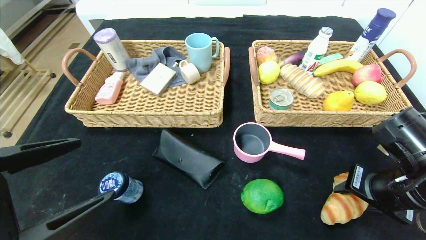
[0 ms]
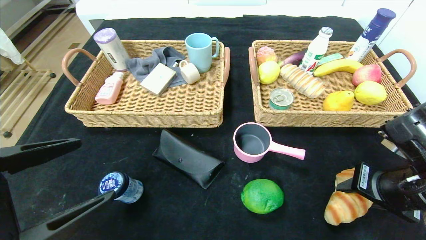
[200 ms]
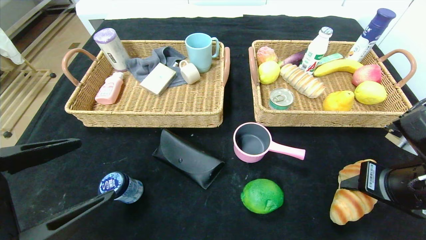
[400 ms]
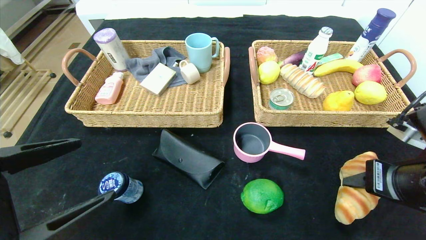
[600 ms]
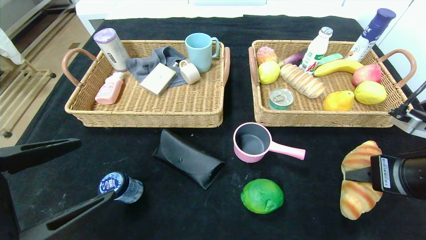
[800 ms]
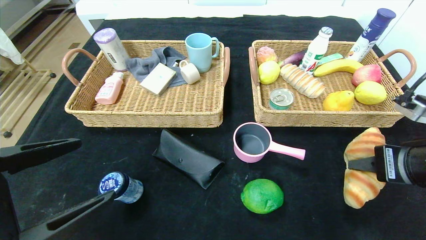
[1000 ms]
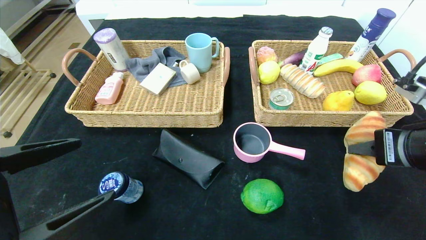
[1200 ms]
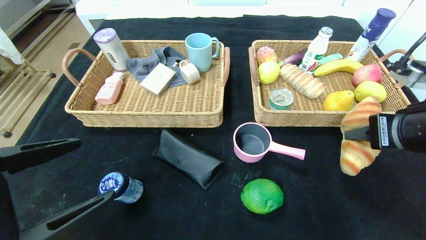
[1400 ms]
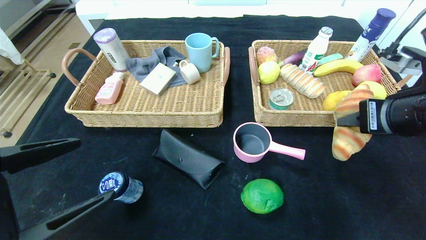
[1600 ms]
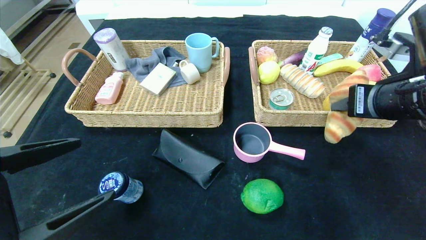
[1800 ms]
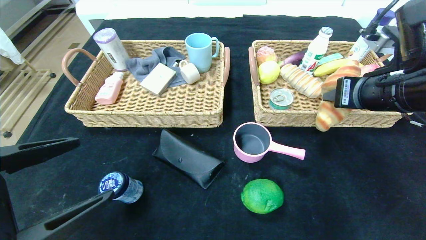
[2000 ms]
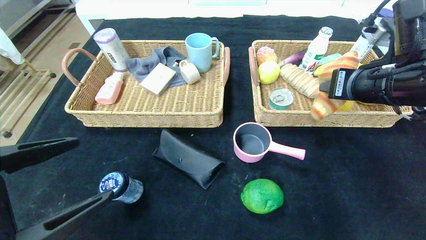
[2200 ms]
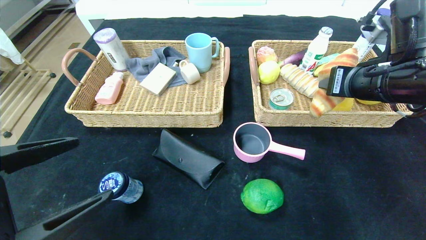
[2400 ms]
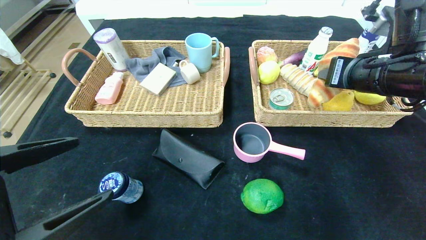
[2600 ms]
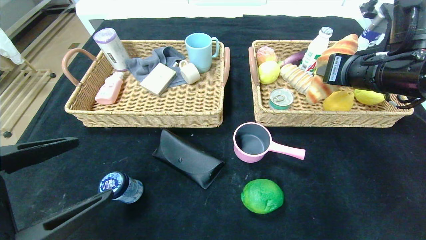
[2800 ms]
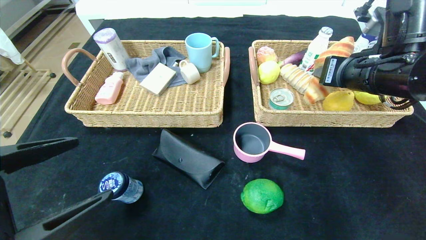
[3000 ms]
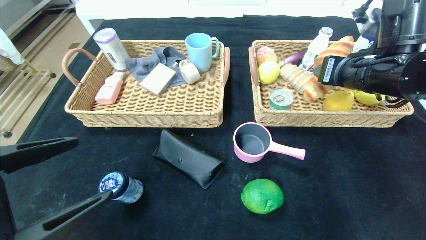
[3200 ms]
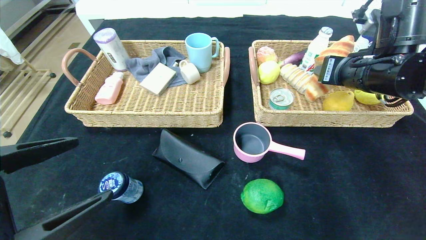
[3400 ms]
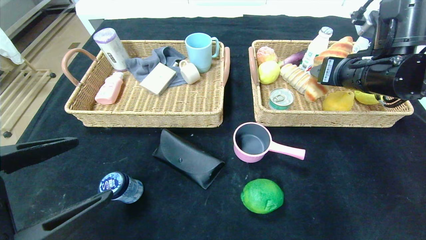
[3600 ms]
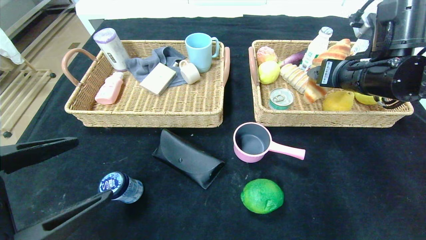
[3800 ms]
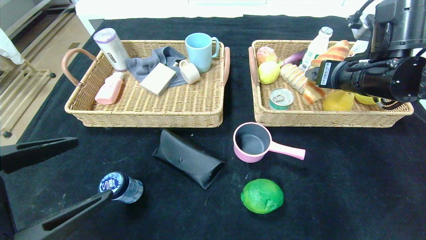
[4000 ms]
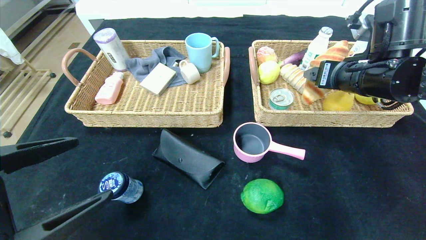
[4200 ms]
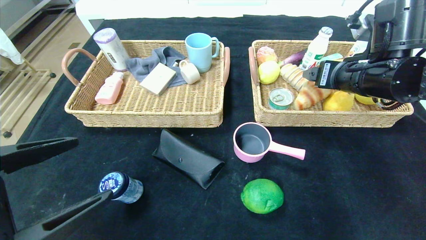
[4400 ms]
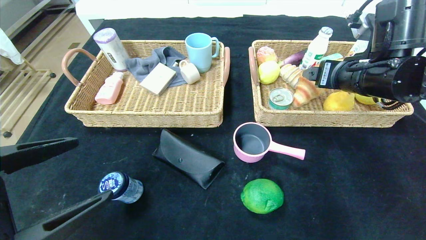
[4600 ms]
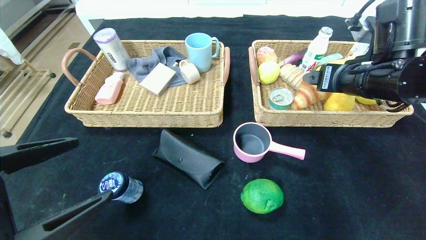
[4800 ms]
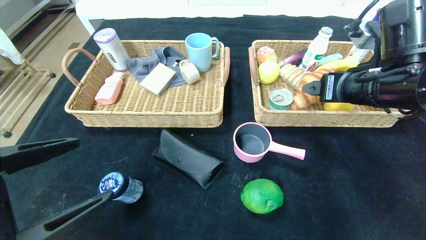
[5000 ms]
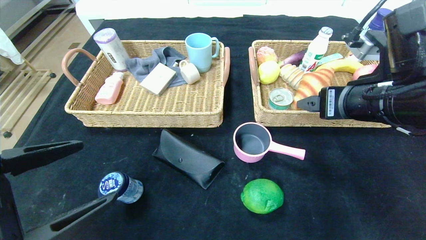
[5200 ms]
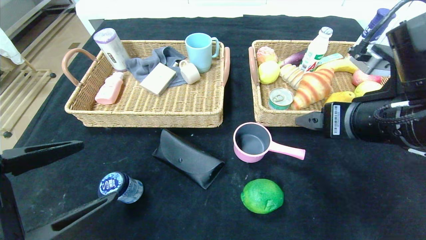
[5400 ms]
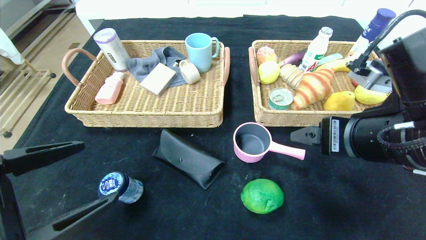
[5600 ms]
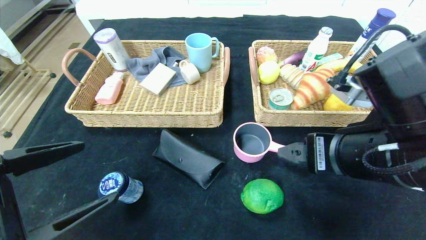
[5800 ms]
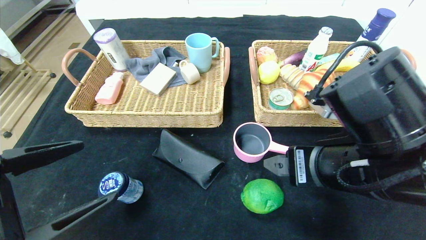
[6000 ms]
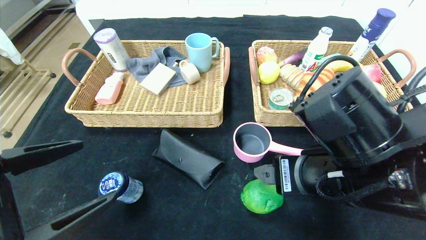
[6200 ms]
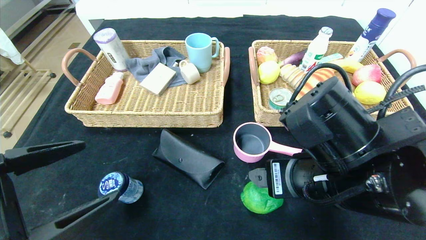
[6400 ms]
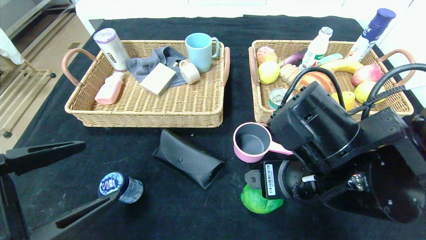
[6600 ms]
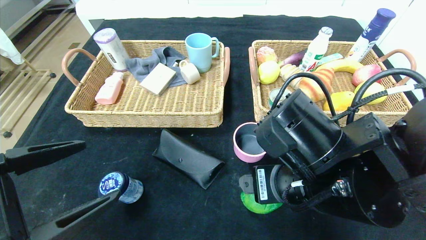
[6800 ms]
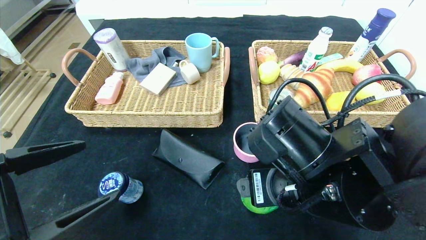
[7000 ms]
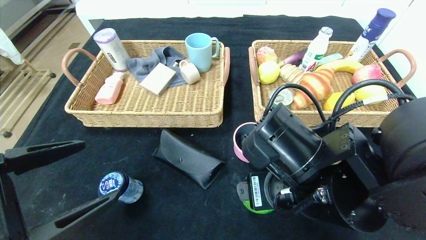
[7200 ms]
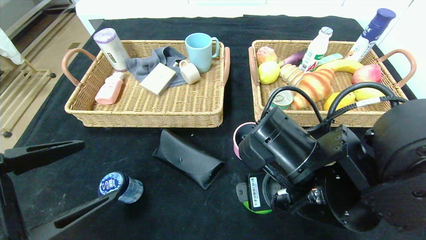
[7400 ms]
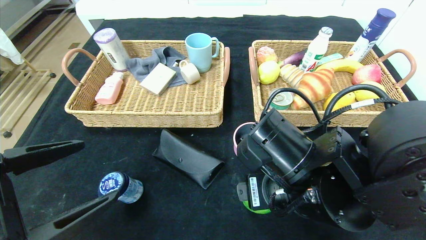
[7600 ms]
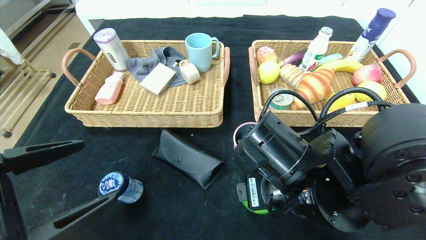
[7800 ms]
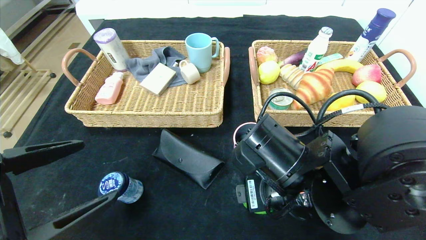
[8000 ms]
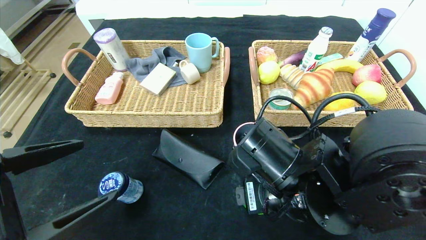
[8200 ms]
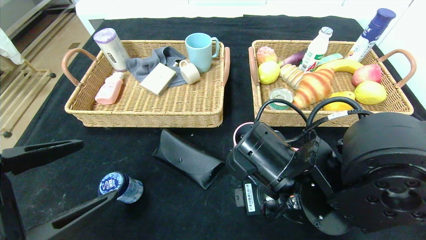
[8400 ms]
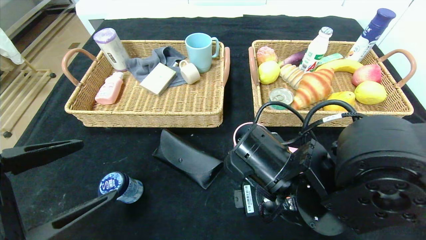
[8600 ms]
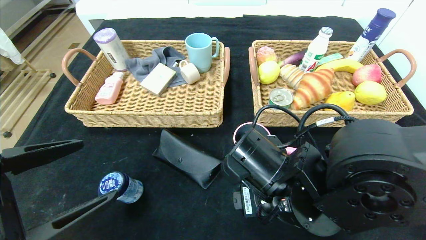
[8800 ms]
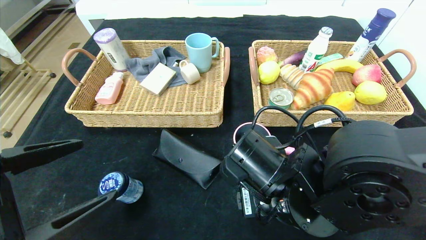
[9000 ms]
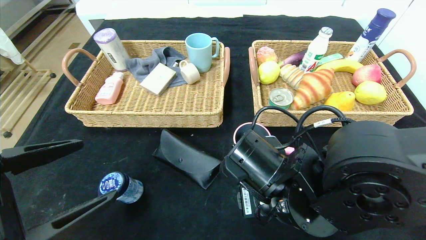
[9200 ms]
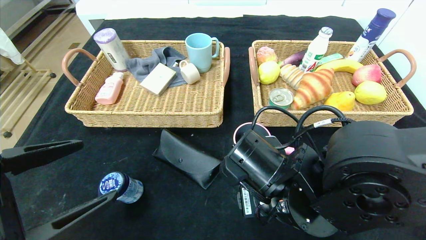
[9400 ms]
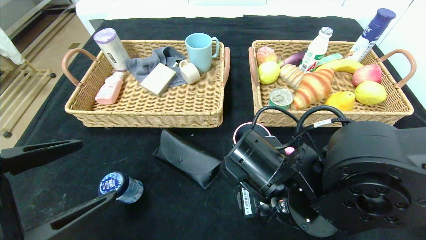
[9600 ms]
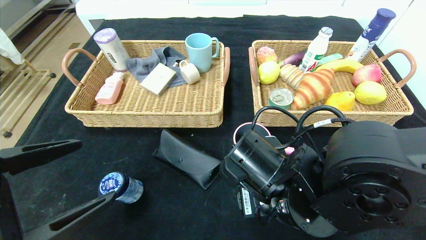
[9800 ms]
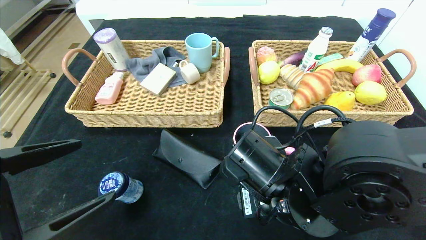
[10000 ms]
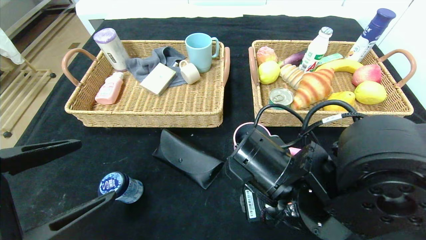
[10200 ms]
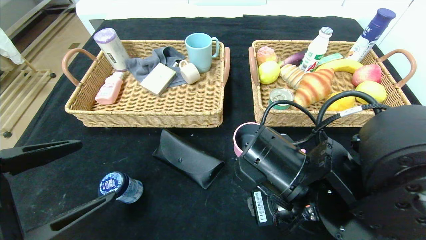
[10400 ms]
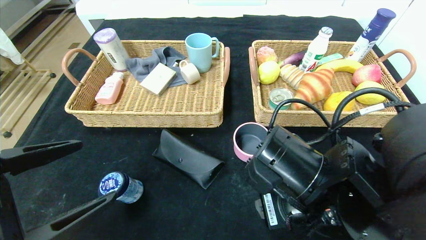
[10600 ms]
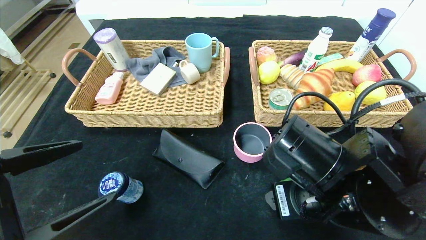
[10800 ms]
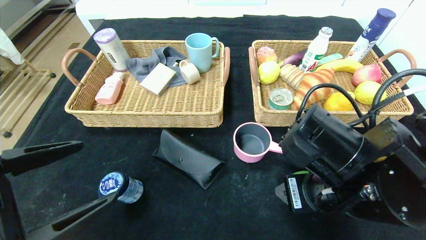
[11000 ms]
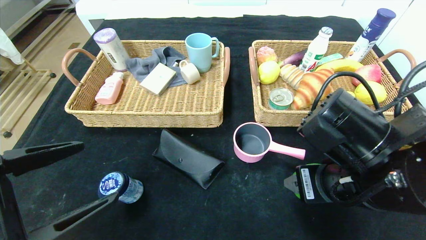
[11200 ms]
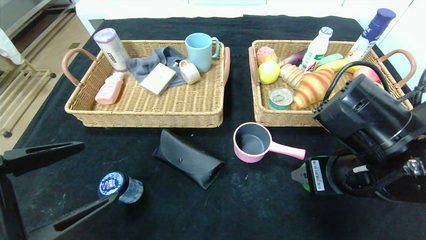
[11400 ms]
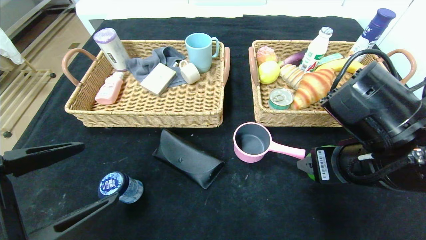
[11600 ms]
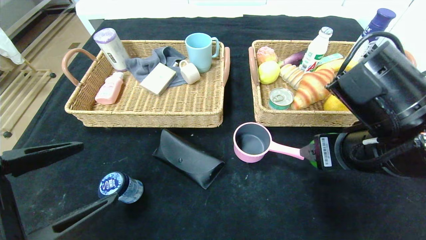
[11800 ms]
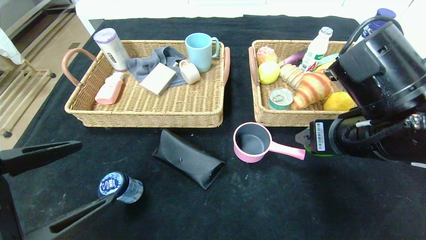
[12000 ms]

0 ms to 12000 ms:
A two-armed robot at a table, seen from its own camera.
Step, 0 ms to 4600 ms: Grasp the croissant and put it in the right basket.
0 ms to 1600 ms: The right gripper travels upward by about 10 cm.
1600 ms to 3000 ms: The right gripper goes about 5 cm forward.
3000 ms to 4400 ms: The right gripper opens up.
4400 ms to 6000 ms: The right gripper moves backward and to the left, about 15 cm.
6000 ms to 7600 ms: The right gripper moves to the left, approximately 5 cm.
7600 ms to 10400 ms: The grippers make only small movements.
10400 ms to 12000 ms: The right gripper heads to the right and upward, covering roughly 10 cm.

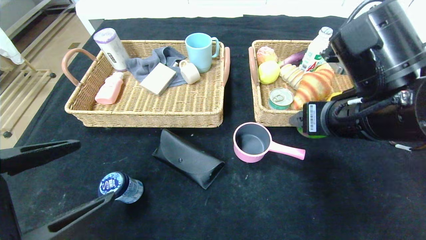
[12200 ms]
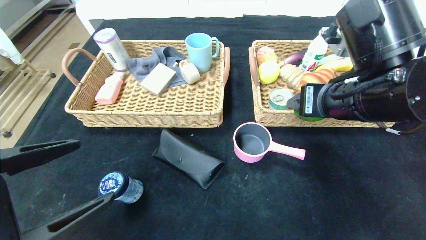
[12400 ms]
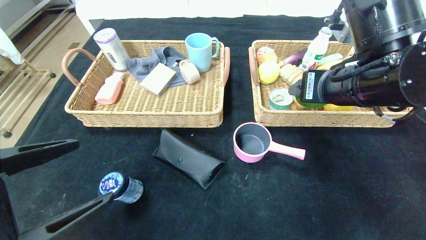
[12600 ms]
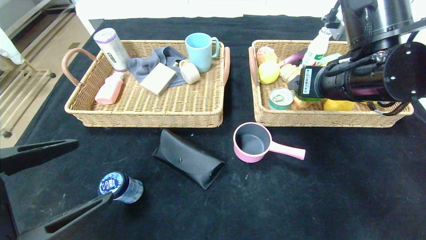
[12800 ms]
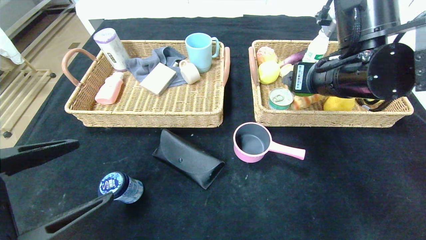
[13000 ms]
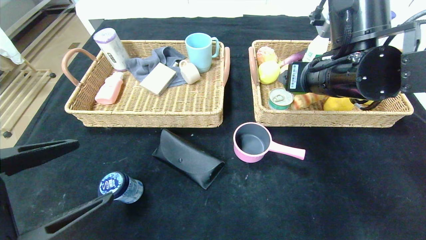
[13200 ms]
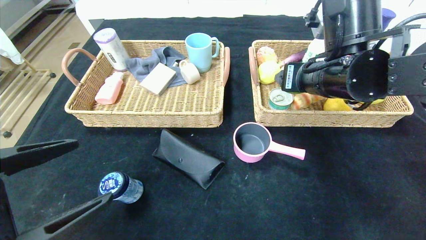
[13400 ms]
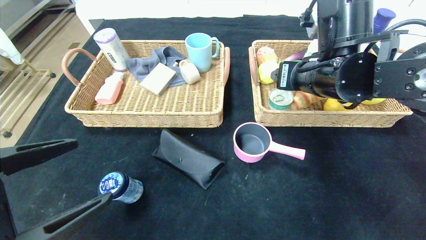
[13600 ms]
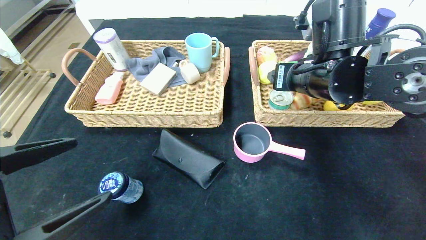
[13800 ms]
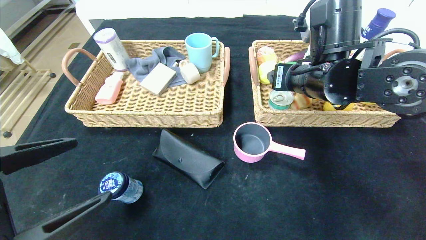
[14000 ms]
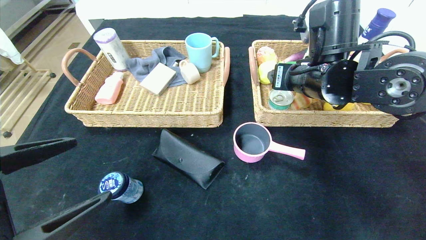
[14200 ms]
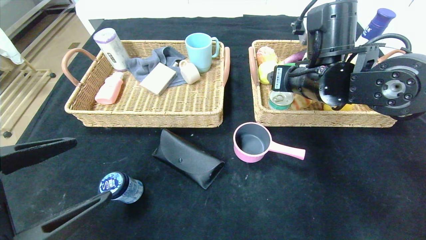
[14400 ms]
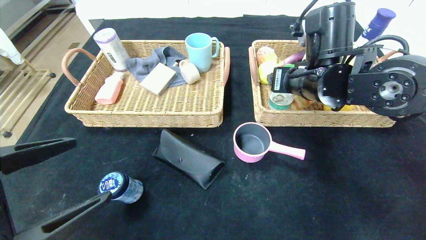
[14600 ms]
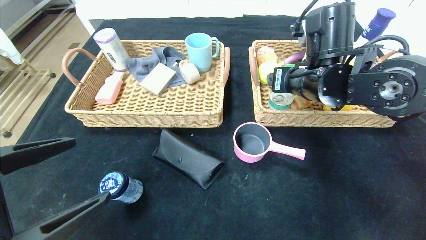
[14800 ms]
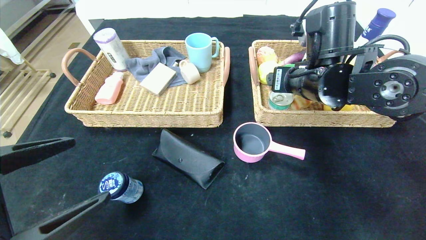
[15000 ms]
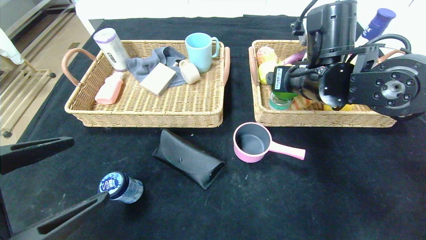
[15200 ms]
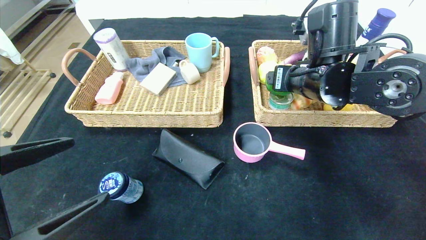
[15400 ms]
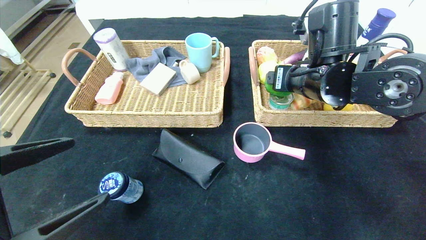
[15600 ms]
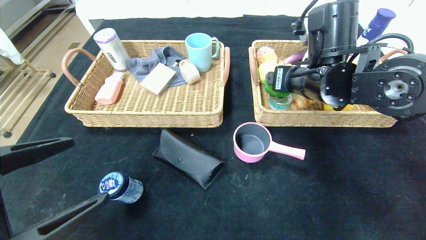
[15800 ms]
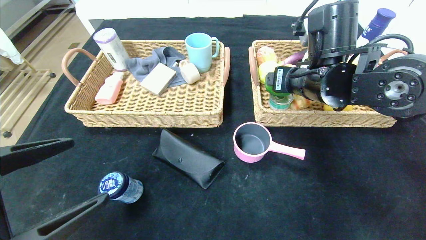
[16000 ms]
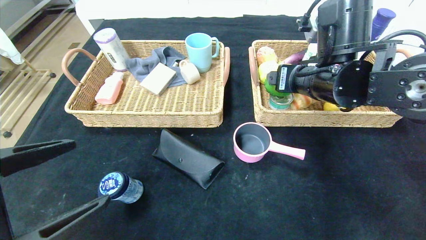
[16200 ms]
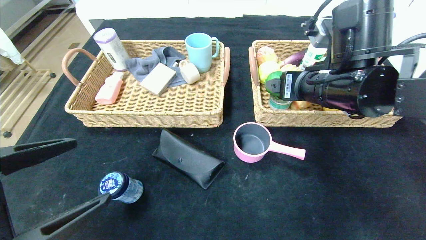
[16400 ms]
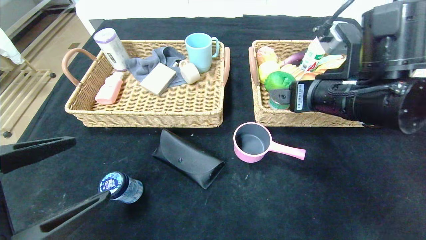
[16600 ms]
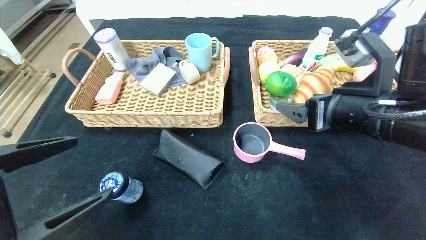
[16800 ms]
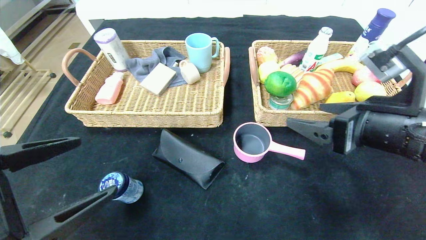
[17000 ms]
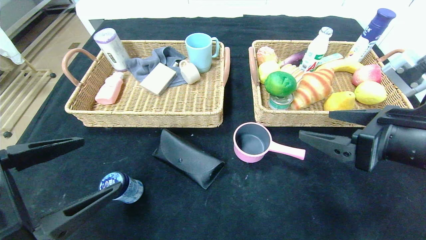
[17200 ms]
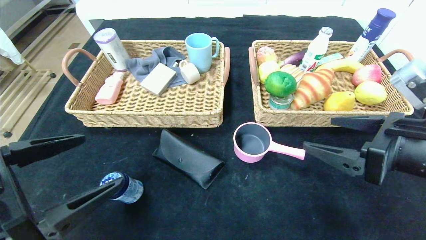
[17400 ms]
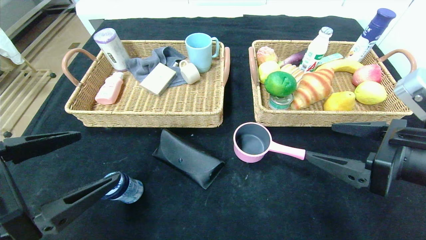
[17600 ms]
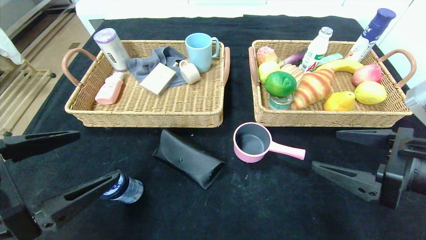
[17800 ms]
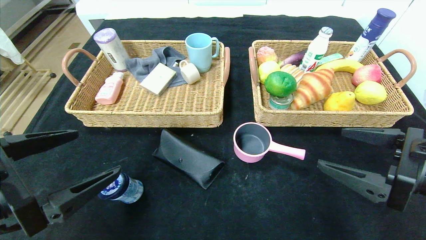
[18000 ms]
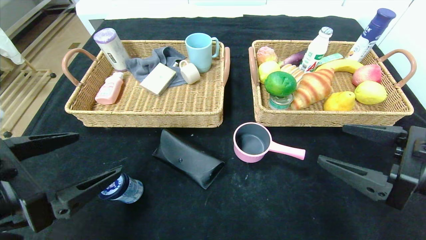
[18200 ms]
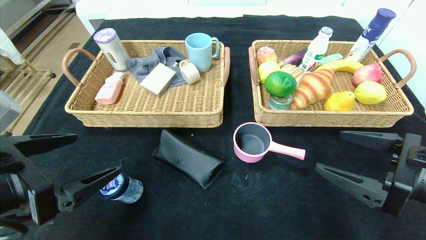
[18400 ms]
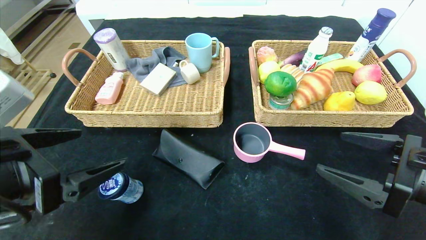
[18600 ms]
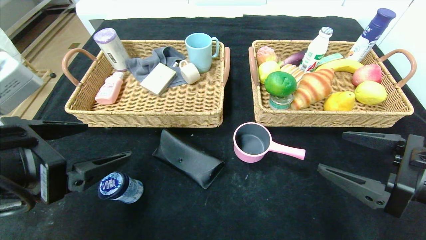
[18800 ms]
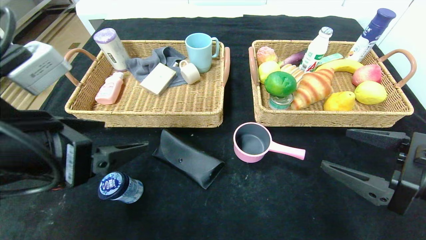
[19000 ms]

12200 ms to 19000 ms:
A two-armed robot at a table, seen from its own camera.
Step, 12200 ms to 15400 ms: Grasp the green lemon and put it in the right basket.
12200 ms to 13600 ms: The right gripper moves forward, about 10 cm.
13600 ms to 16200 ms: The grippers make only small movements.
16200 ms to 17600 ms: The right gripper moves backward and to the right, some 15 cm.
17600 ms to 19000 ms: The left gripper heads forward, covering some 5 cm.
